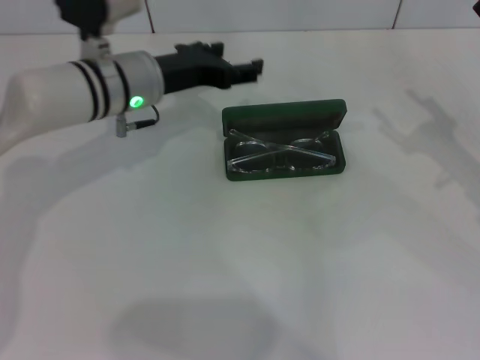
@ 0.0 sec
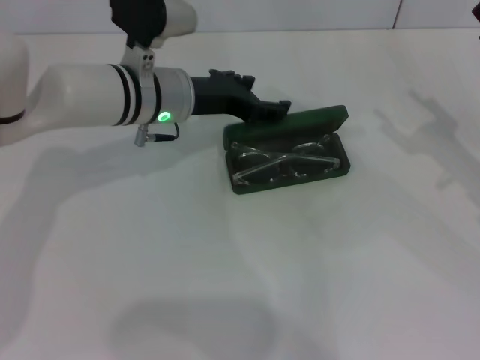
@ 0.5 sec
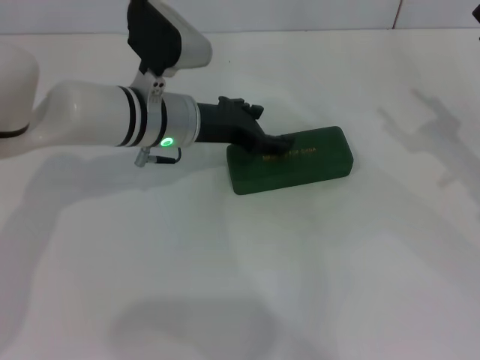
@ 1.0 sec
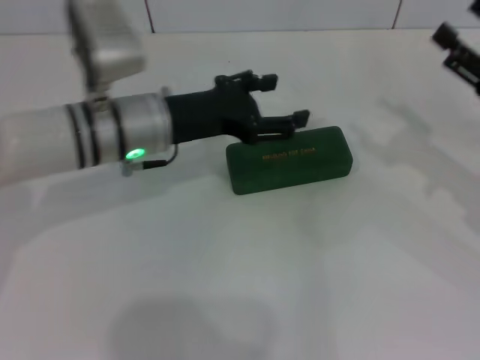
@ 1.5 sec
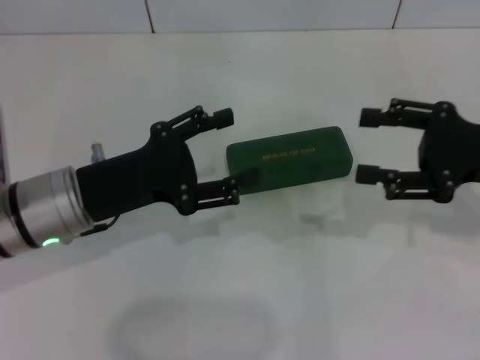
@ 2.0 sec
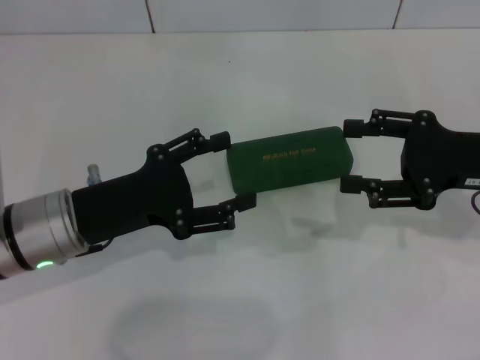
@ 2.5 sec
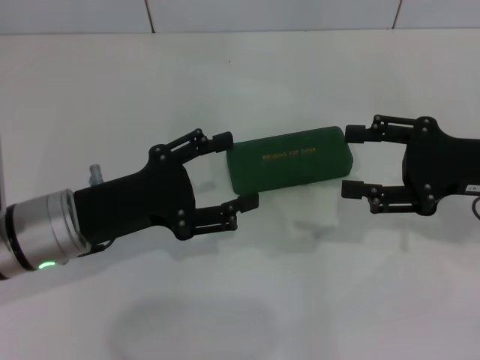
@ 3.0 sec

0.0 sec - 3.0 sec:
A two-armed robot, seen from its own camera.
0.0 sec - 1.5 sec: The left gripper goes about 5 cm backward.
1.5 sec - 3.0 sec: The left gripper moves backward and to the left, approximately 10 cm.

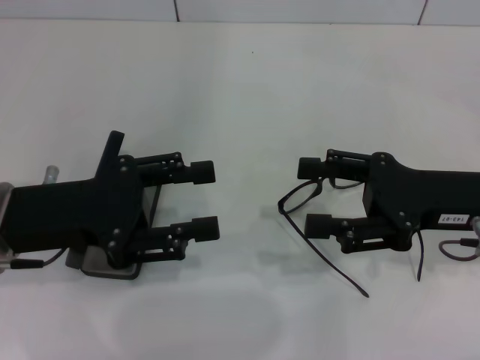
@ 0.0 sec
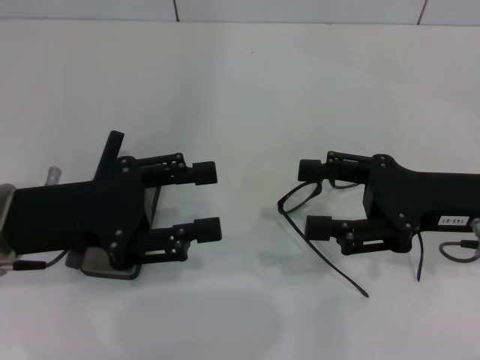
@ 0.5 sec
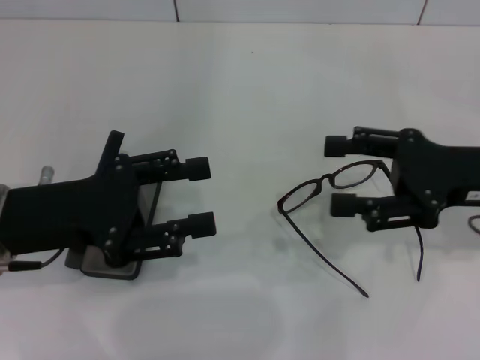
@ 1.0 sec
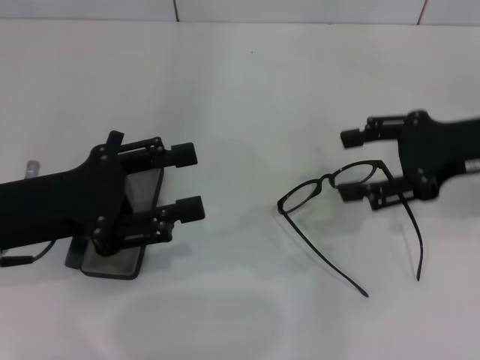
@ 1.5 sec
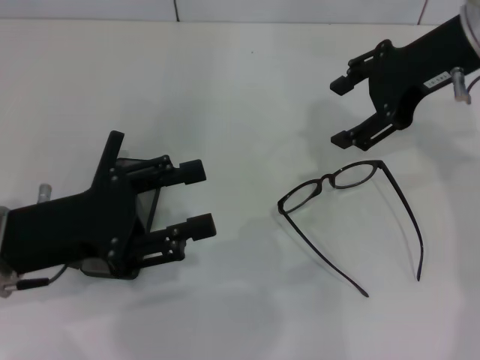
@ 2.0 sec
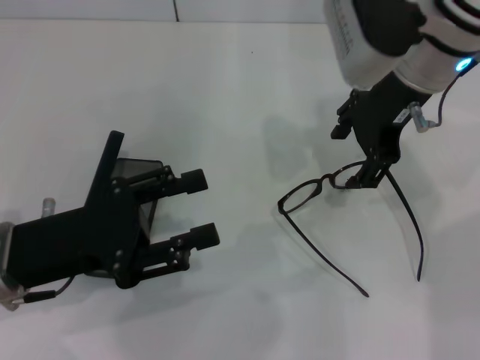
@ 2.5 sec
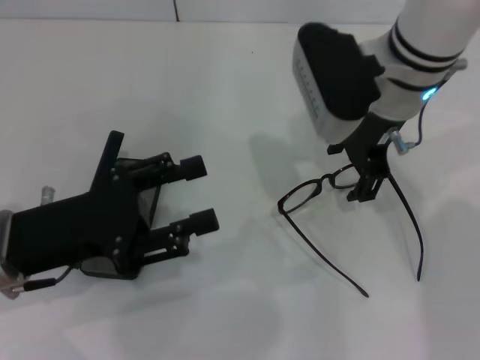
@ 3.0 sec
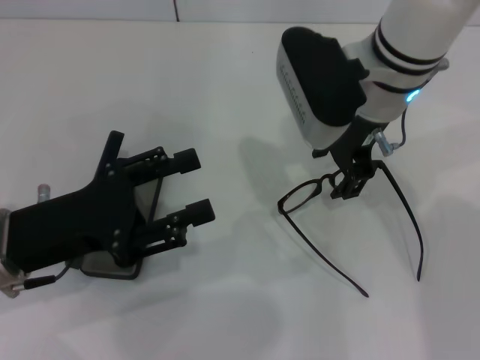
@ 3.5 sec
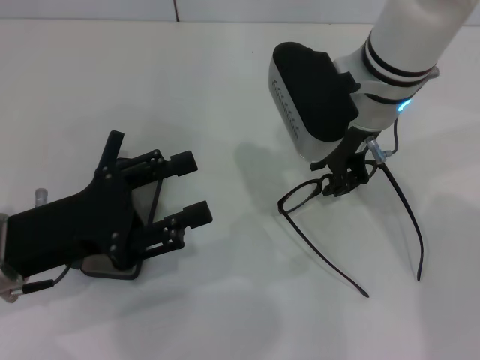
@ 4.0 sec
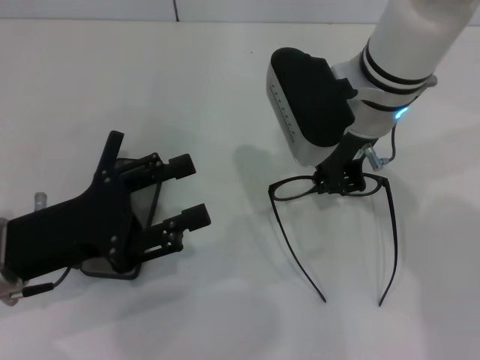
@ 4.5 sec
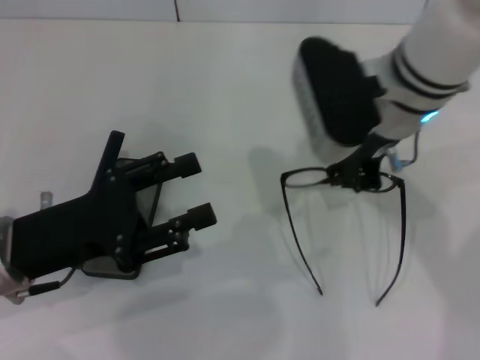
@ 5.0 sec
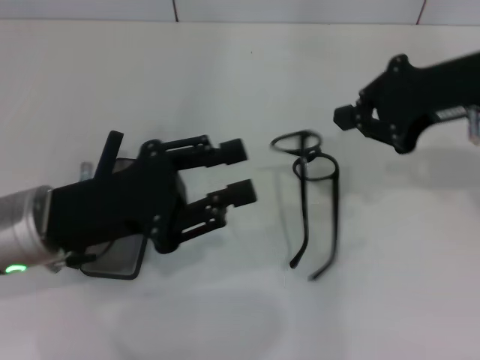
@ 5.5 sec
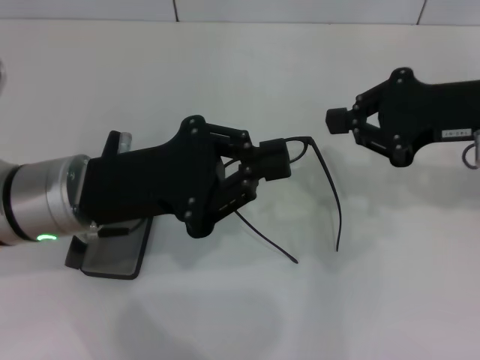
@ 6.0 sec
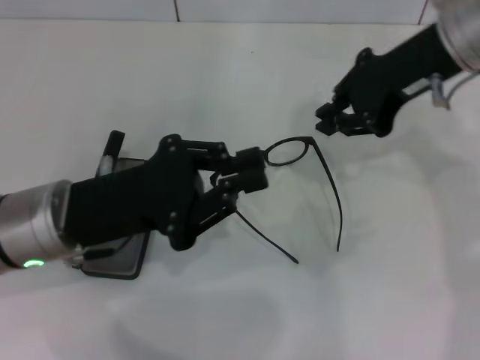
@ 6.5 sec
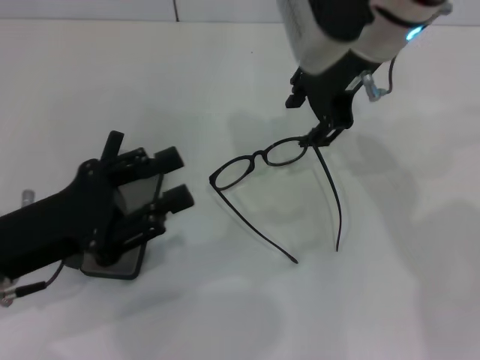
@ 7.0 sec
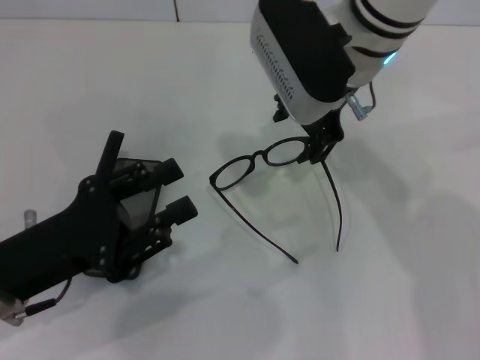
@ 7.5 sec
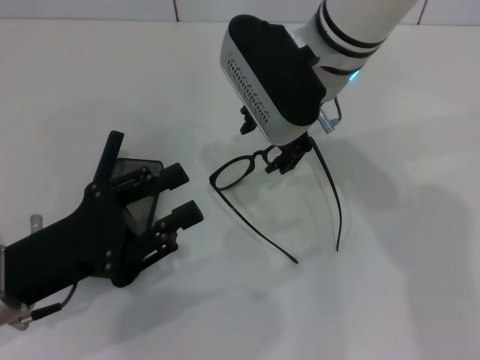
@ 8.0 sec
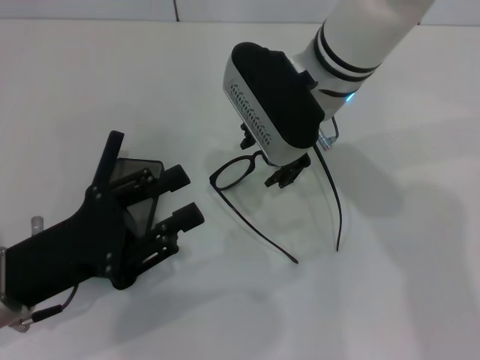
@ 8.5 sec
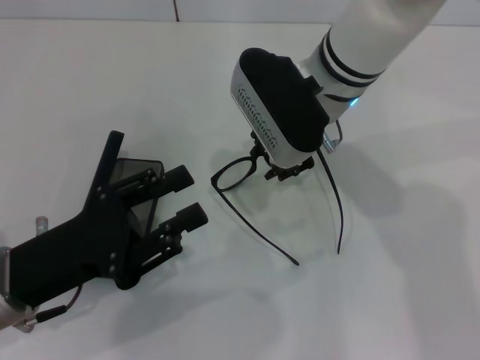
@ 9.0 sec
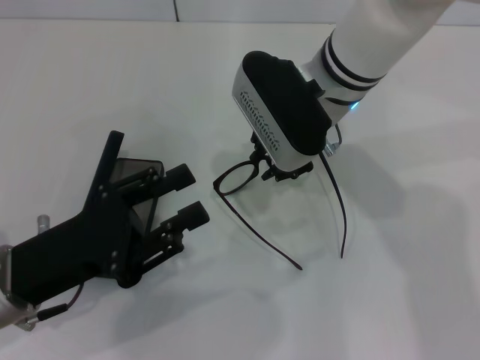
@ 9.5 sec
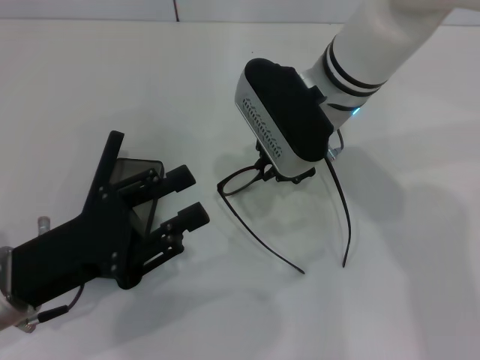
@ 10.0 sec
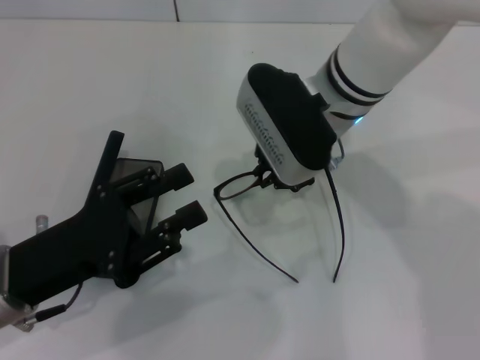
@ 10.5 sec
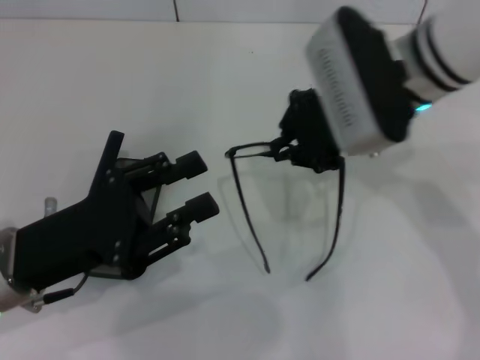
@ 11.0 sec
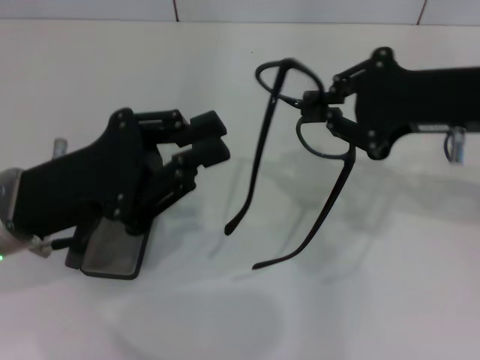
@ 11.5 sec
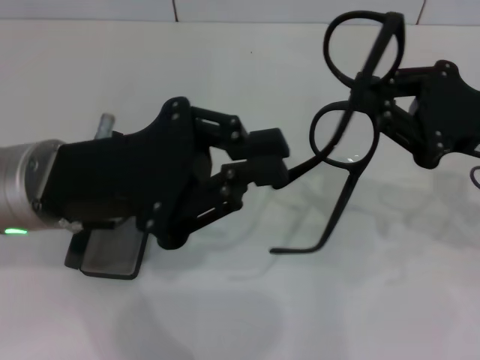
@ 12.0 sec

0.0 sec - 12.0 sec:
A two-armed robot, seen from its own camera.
Step, 0.0 sec - 10.0 sec: Grab the eyeglass frame with your right hand.
0.0 sec - 2.0 sec: The right gripper heads upward and forward, covering roughly 15 cm.
2.0 sec - 4.0 sec: The right gripper heads to the left and downward, covering about 15 cm, and closes.
4.0 sec - 6.0 sec: The right gripper moves to the right, some 15 cm, and closes; the left gripper heads to the right, covering approximately 5 cm, and closes up.
6.0 sec - 8.0 sec: The right gripper heads to the left, covering approximately 20 cm, and opens its fingers, while the left gripper travels backward and to the left by roughly 10 cm, and opens its fingers.
8.0 sec - 10.0 sec: The right gripper closes its fingers.
10.0 sec - 12.0 sec: The right gripper moves to the right and backward, roughly 25 cm, while the left gripper goes about 10 cm upward, forward and to the right, and closes.

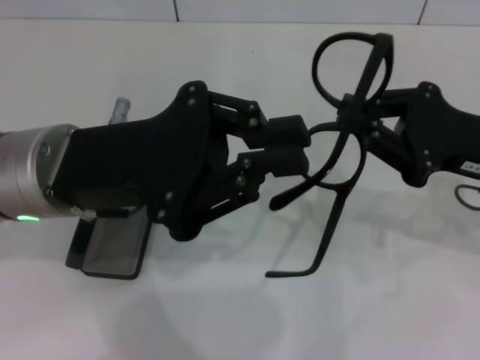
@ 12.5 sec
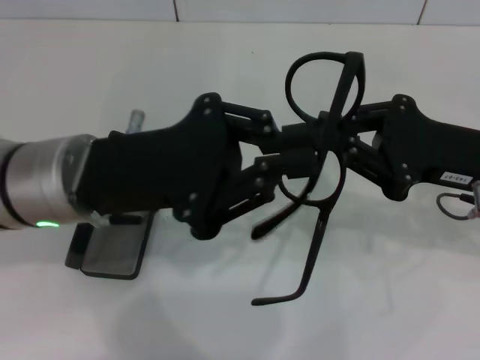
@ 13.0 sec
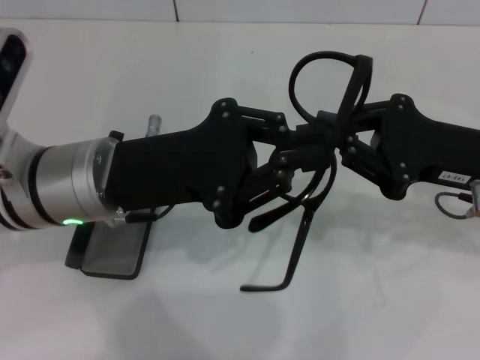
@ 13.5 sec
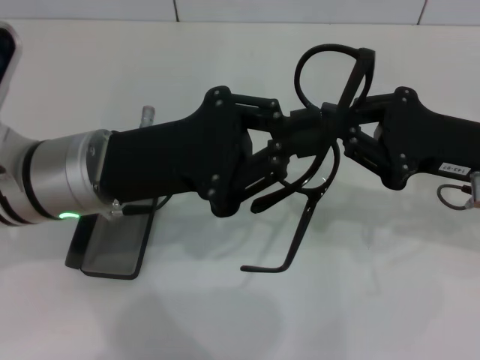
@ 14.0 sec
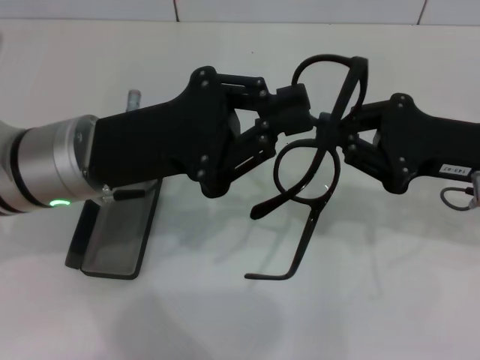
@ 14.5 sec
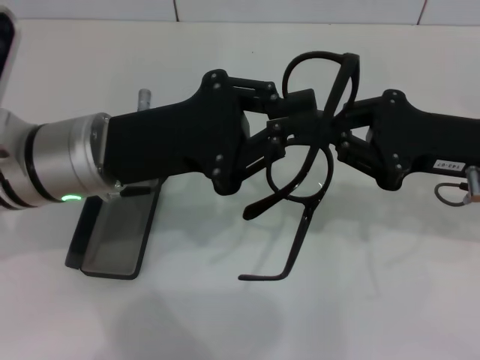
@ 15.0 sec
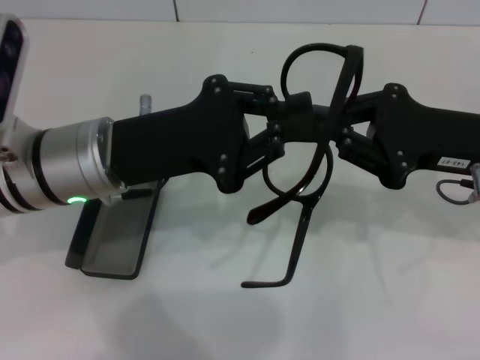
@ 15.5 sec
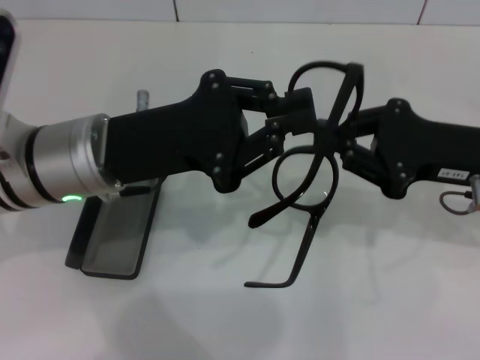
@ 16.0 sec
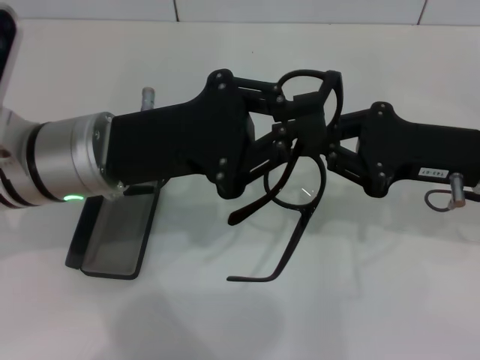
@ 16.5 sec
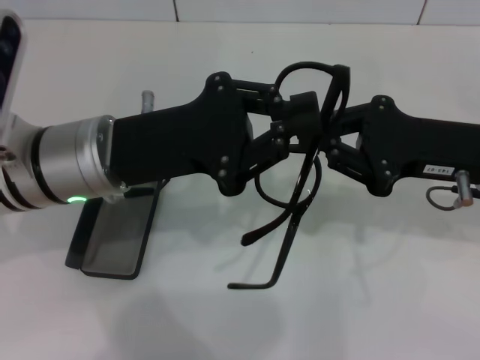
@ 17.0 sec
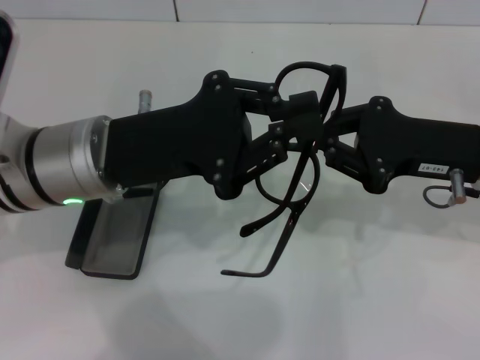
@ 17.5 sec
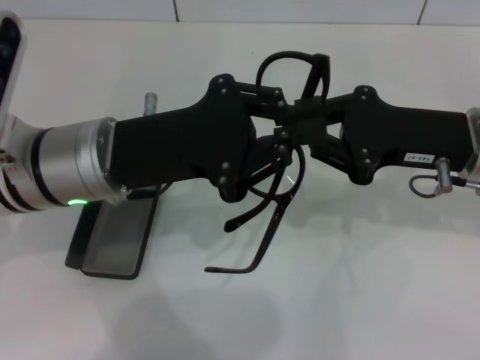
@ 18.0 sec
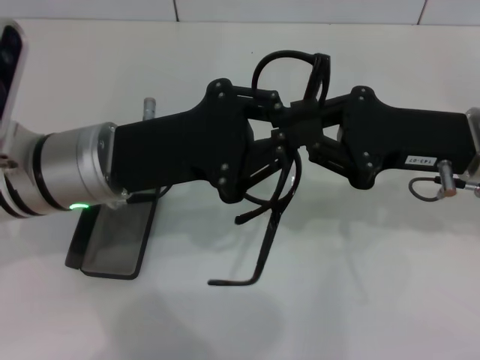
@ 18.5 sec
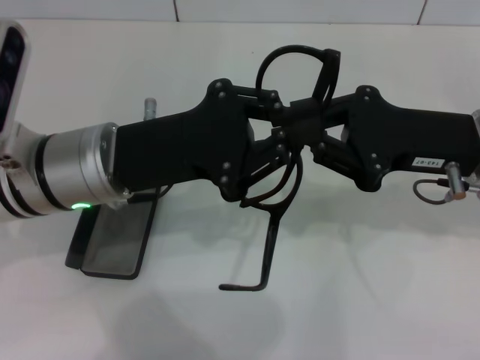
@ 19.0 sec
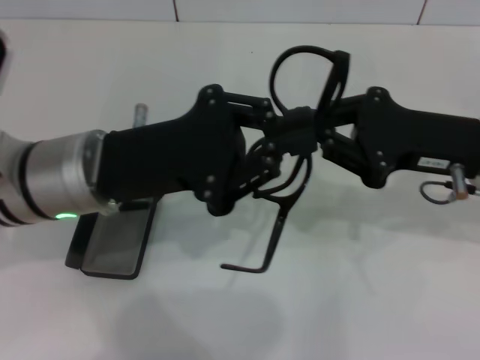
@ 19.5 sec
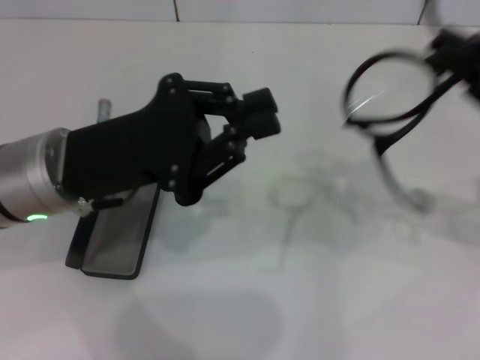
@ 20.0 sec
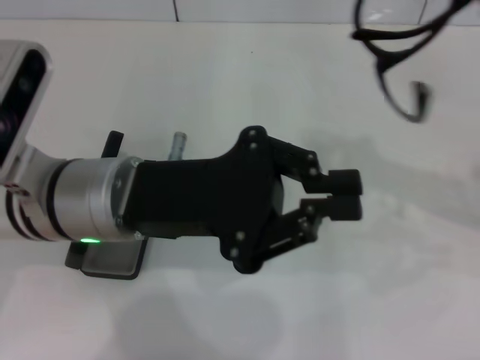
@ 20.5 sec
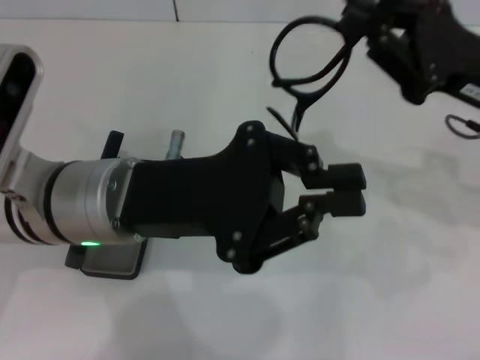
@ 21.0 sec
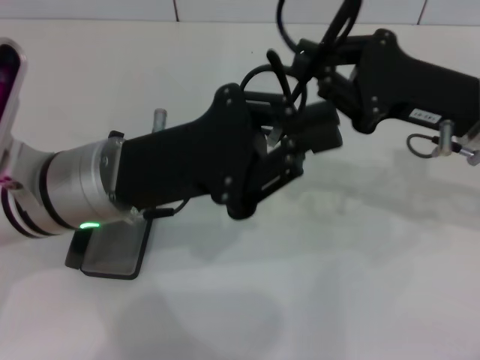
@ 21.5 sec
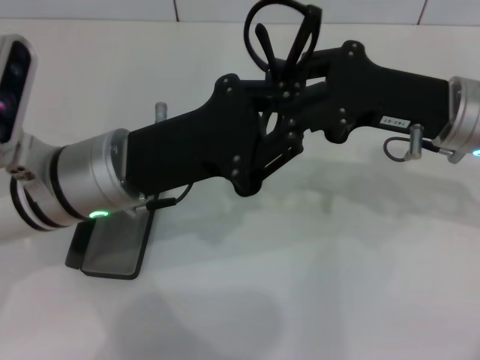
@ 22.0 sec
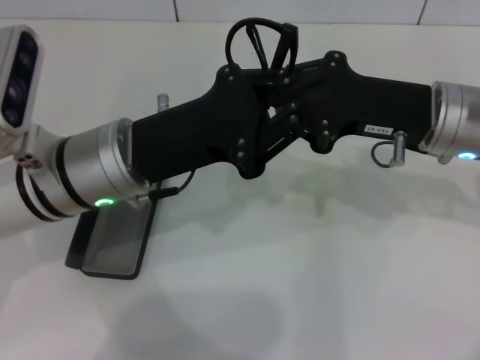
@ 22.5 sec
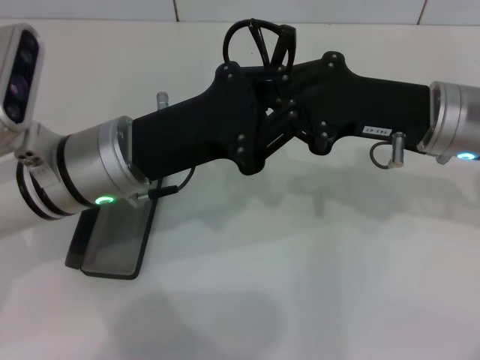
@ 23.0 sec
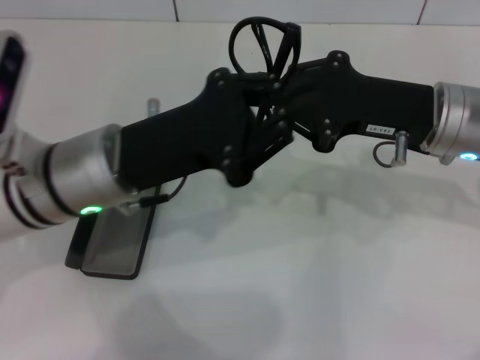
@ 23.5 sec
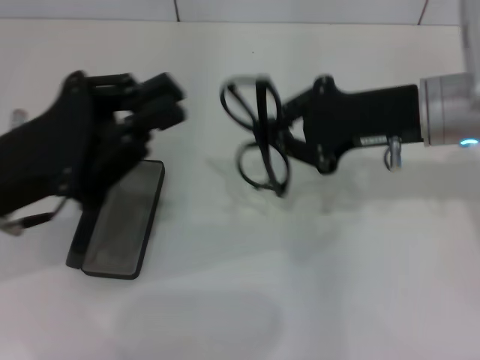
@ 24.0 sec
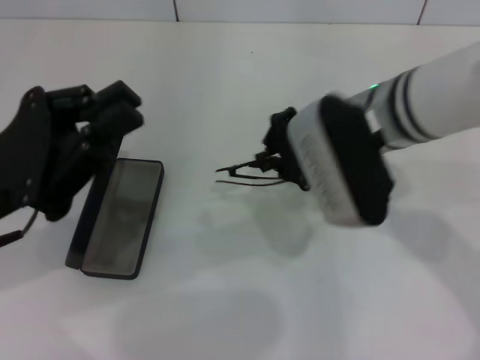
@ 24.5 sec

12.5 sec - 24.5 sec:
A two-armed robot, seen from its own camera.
Step, 12.5 sec - 23.0 sec: Lift the glasses with your right hand.
14.5 sec - 18.5 sec: The grippers move only a little.
18.5 sec - 20.5 sec: The right gripper goes roughly 5 cm to the right.
20.5 sec - 22.5 sec: The right gripper heads to the left, covering about 10 cm.
22.5 sec - 24.5 sec: The left gripper goes approximately 10 cm to the left and backward. The right gripper heads to the left, covering approximately 10 cm.
